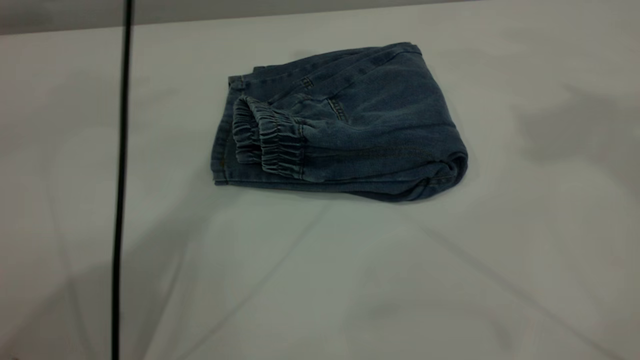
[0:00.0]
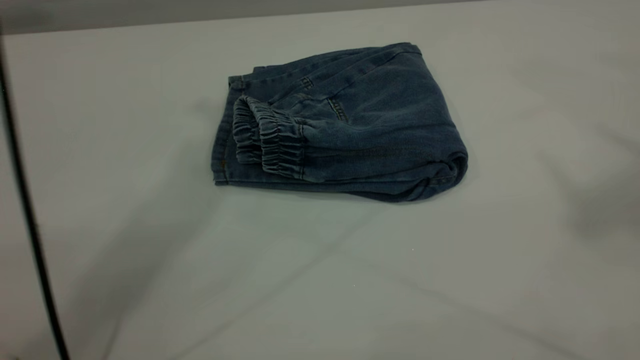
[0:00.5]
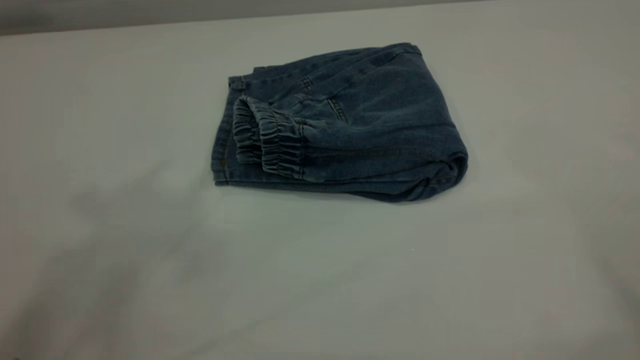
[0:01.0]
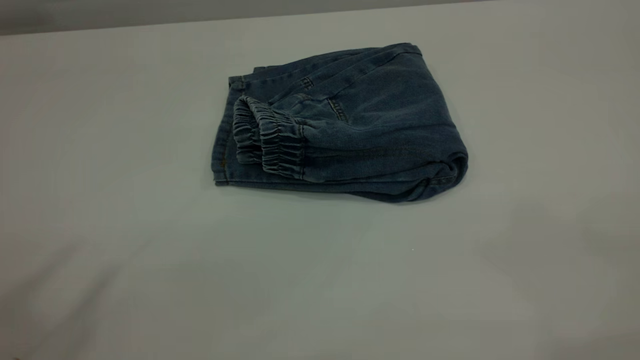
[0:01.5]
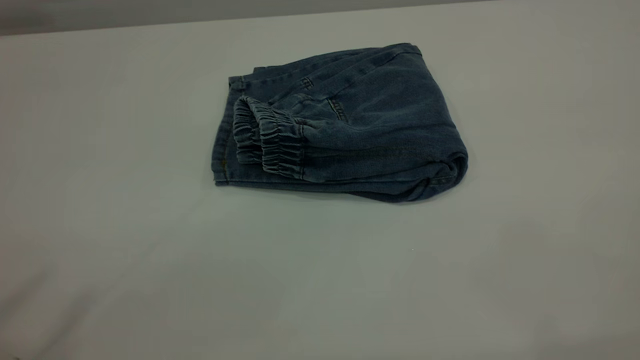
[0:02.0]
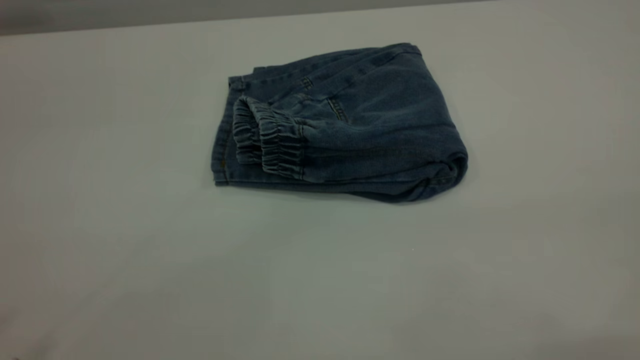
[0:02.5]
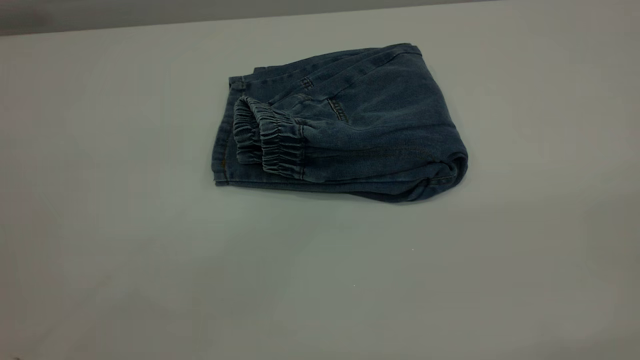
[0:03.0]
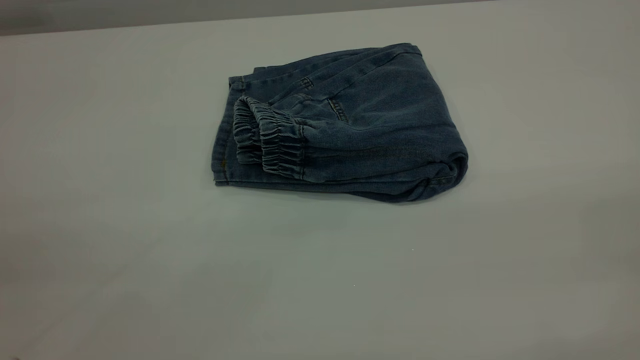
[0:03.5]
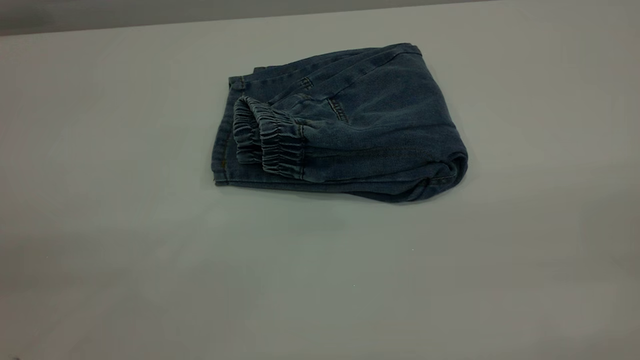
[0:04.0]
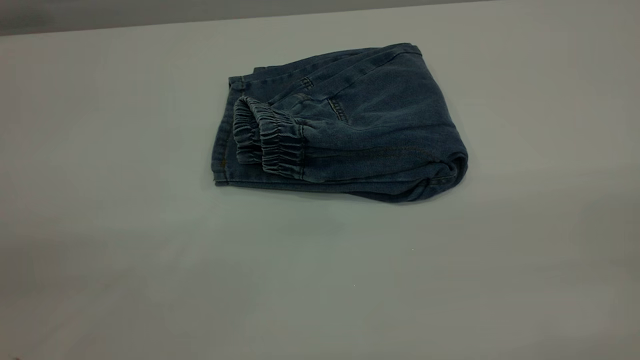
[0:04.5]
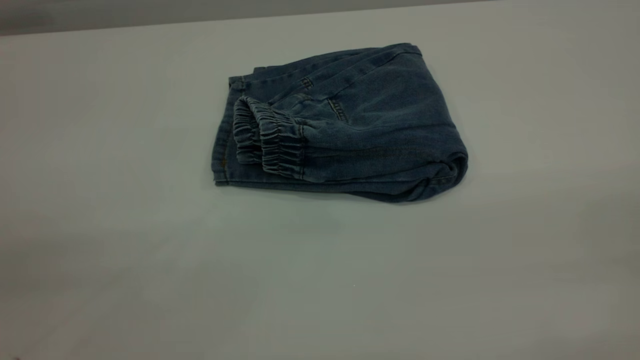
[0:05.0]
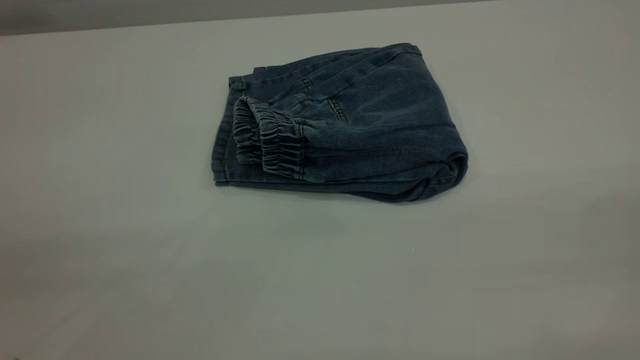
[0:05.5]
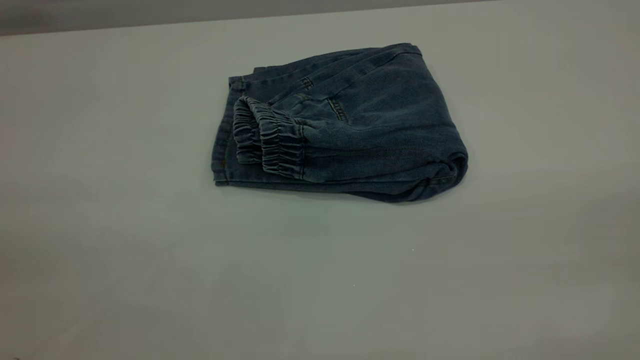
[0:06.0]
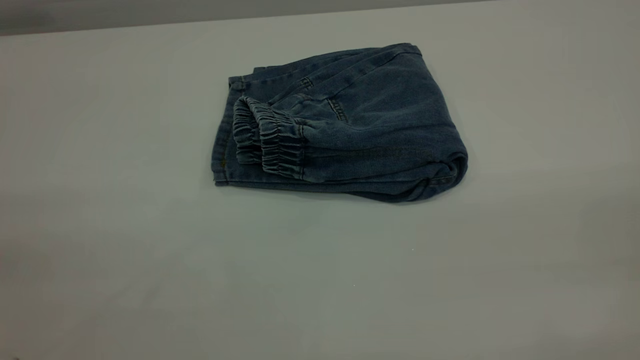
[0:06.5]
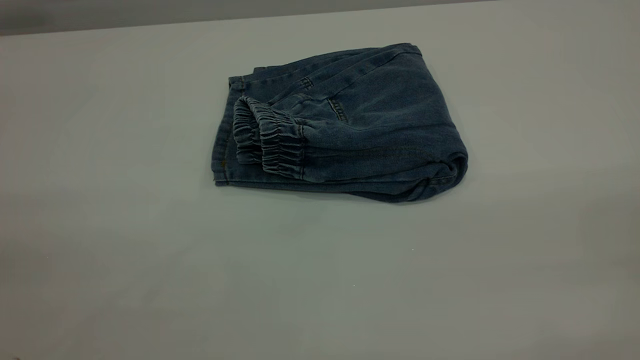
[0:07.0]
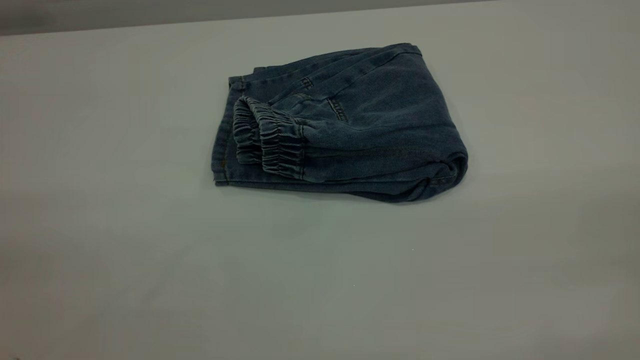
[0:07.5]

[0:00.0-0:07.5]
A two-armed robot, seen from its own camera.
0:00.0 to 0:02.0: The left gripper travels backward, upward and to the left by approximately 40 cm.
0:04.0 to 0:05.5: Both grippers stay put.
